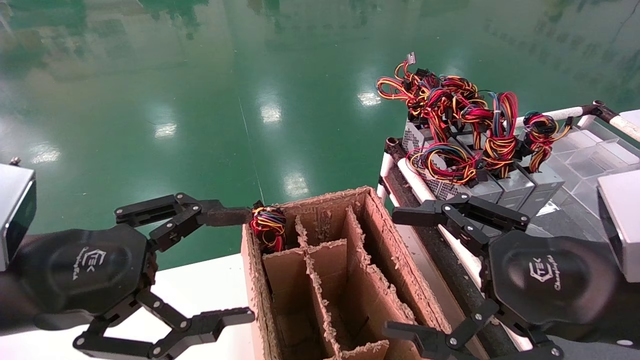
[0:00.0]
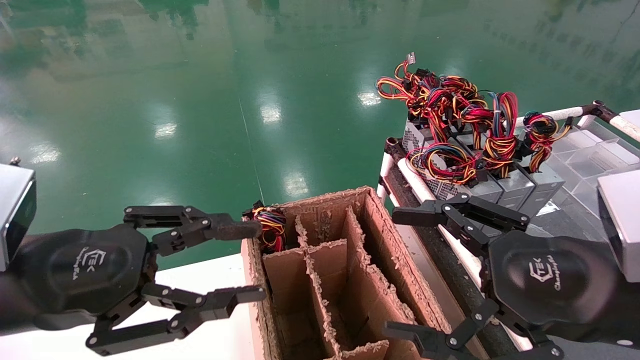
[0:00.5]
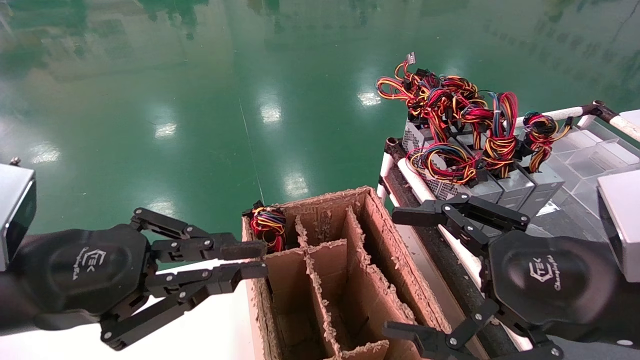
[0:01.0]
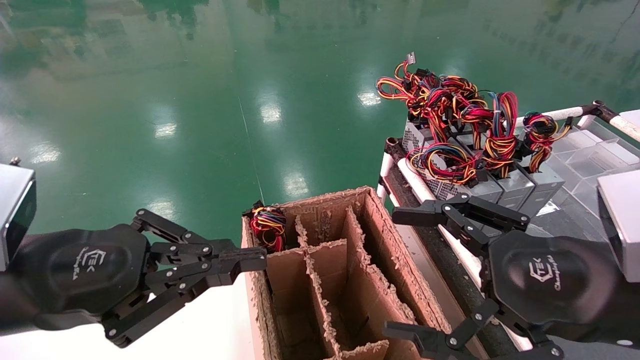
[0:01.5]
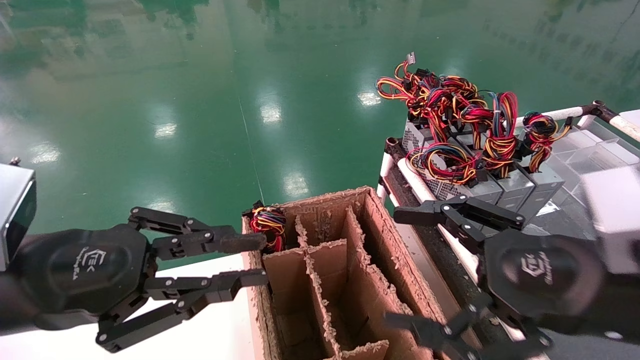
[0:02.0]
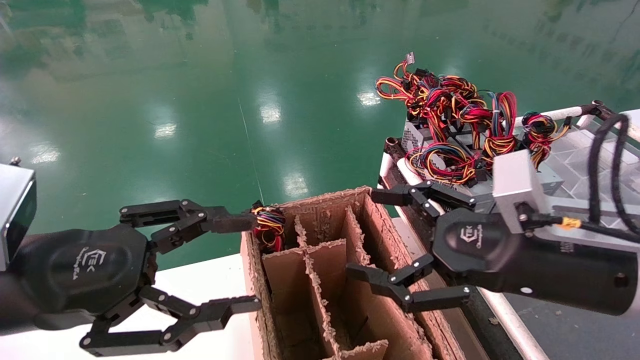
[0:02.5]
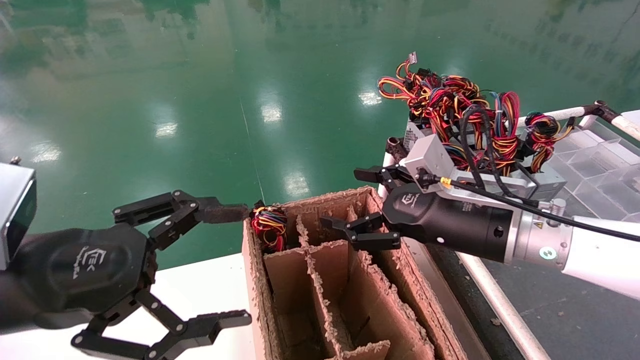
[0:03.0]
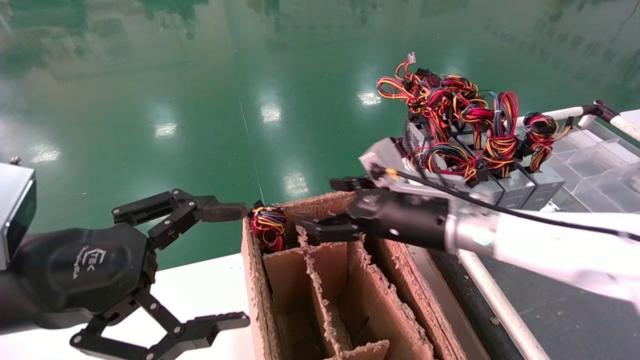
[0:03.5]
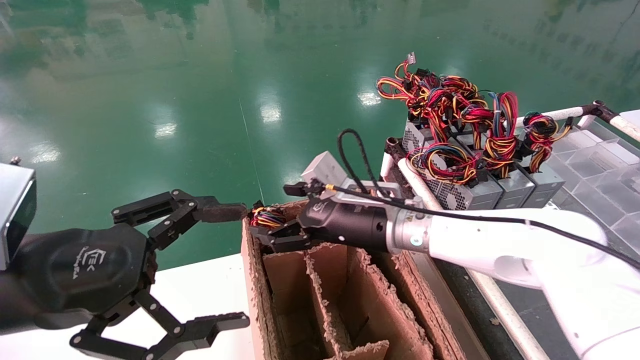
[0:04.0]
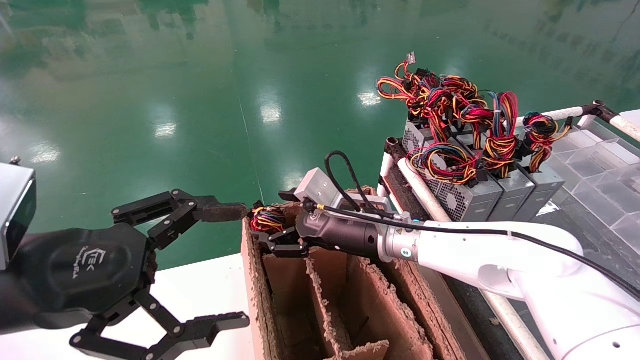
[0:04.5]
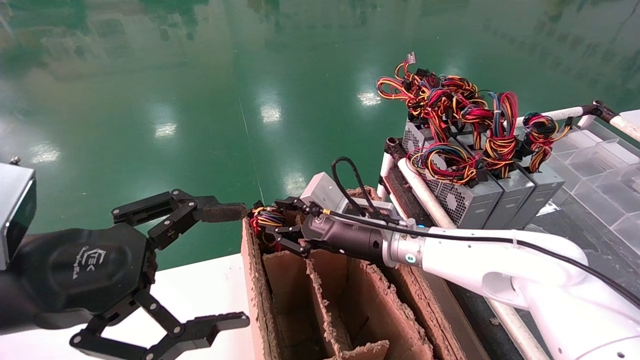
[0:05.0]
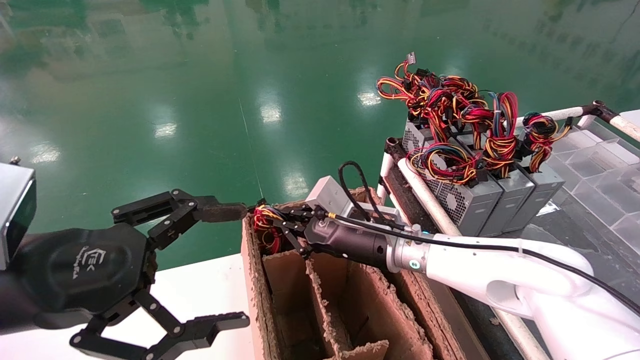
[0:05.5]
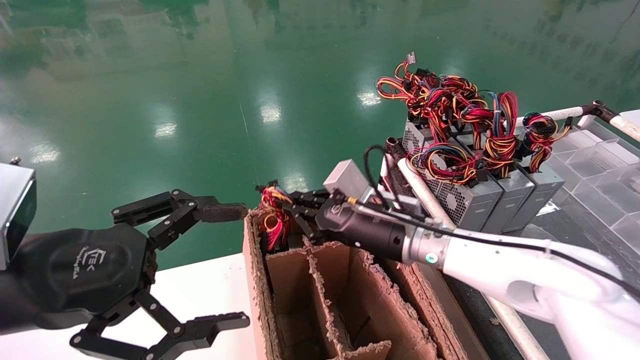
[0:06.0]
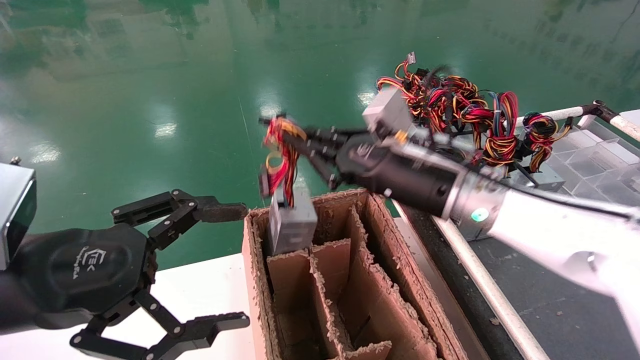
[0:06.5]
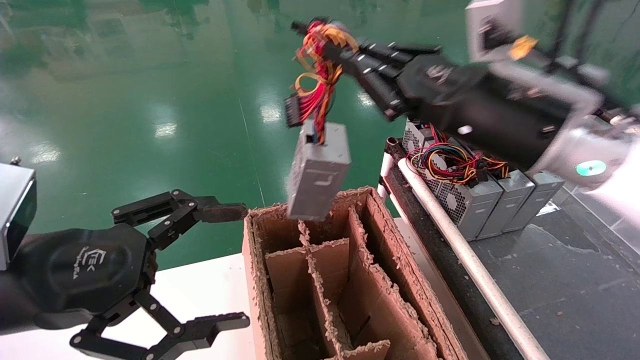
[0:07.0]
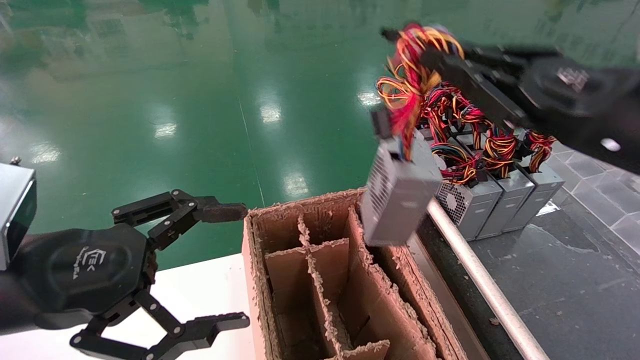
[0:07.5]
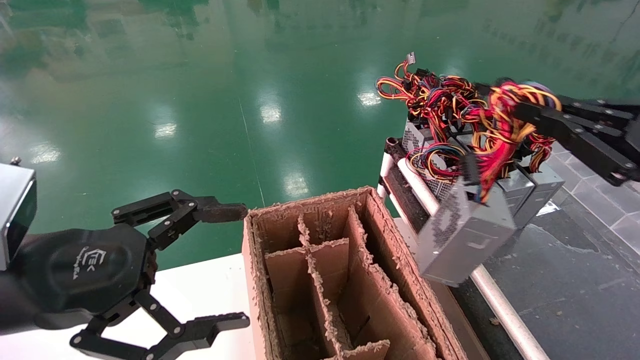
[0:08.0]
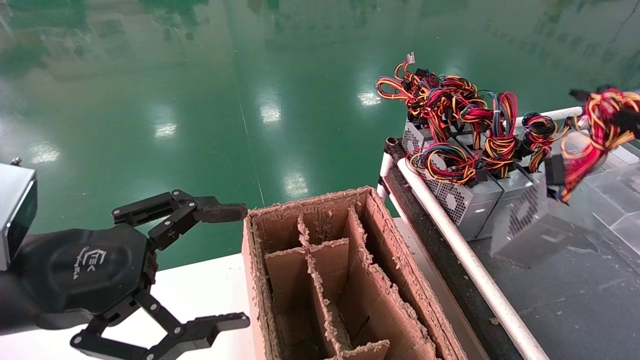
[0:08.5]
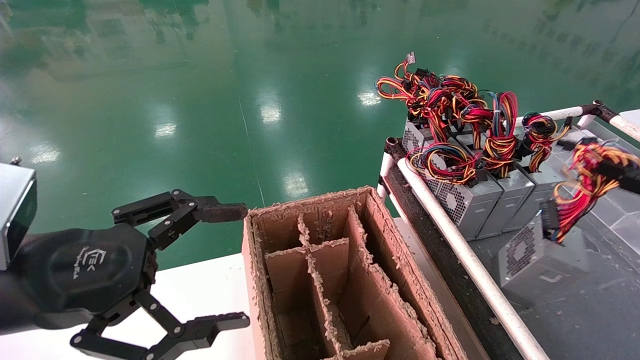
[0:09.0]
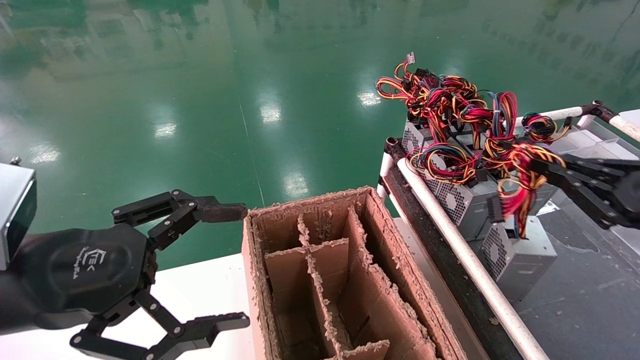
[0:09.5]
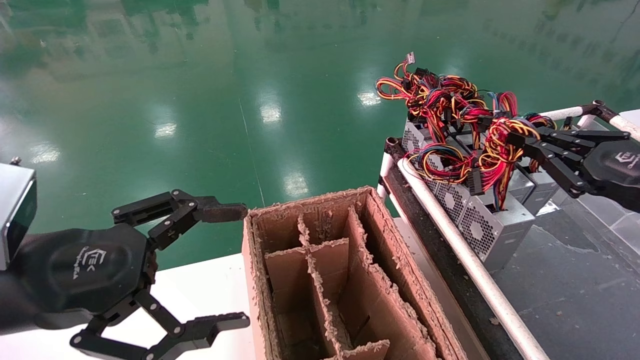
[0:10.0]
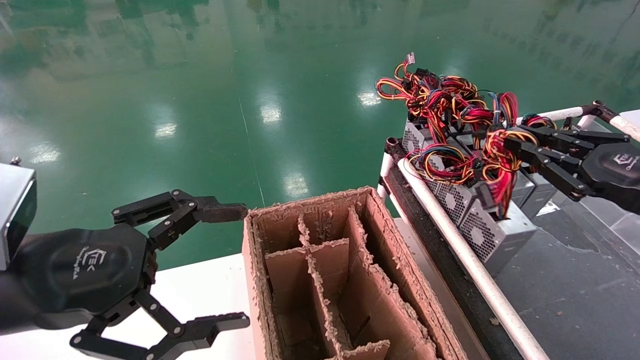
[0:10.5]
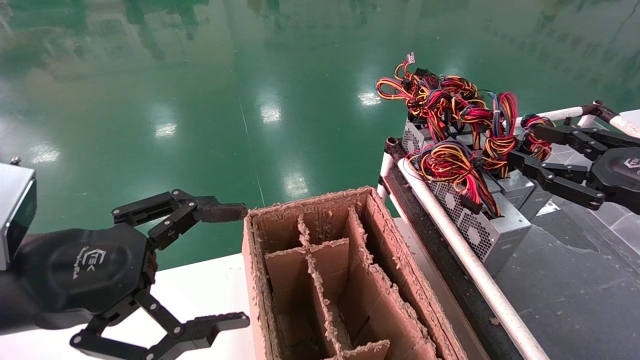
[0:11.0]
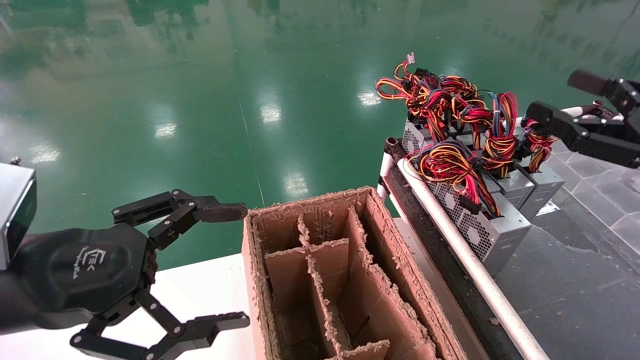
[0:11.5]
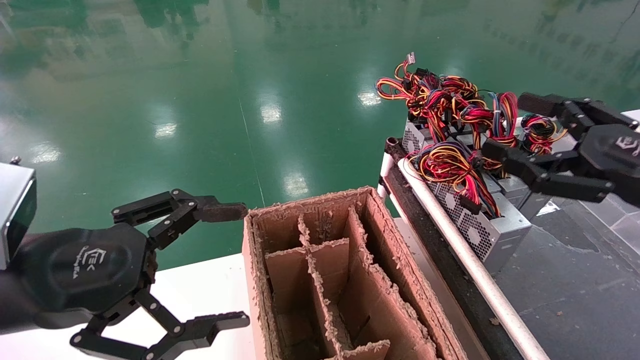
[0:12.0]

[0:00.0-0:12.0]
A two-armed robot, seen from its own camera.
Step, 1.5 to 5.5 s: Grab and lift the power supply from the large box.
Step, 6.0 to 10.5 s: Place the power supply on the operating table.
0.0 to 2.0 s: The left gripper closes its fingers.
2.0 to 4.0 s: The left gripper opens up; the right gripper heads forward and to the left, covering some 25 cm.
4.0 to 6.0 s: The right gripper closes.
6.0 to 8.0 s: The right gripper heads to the right, backward and upward, covering about 35 cm.
8.0 to 10.0 s: The right gripper travels forward by some 5 cm.
10.0 to 12.0 s: The right gripper shifts by approximately 5 cm, and opens up.

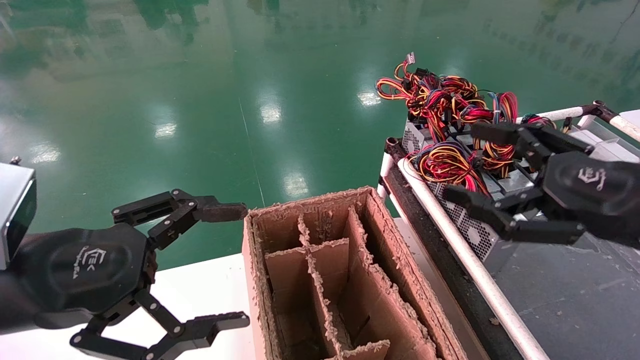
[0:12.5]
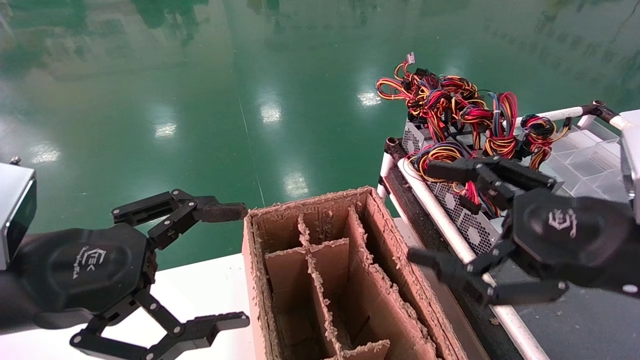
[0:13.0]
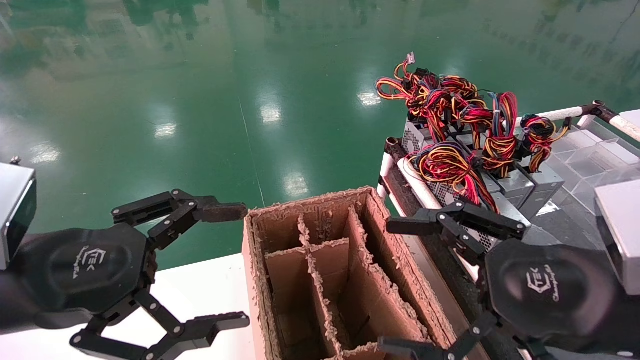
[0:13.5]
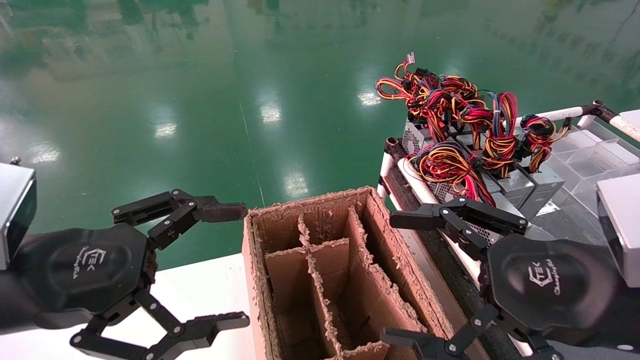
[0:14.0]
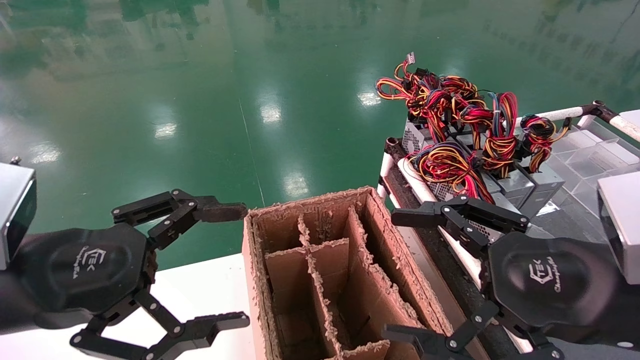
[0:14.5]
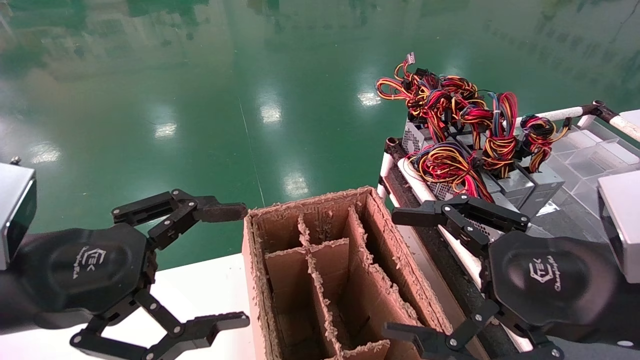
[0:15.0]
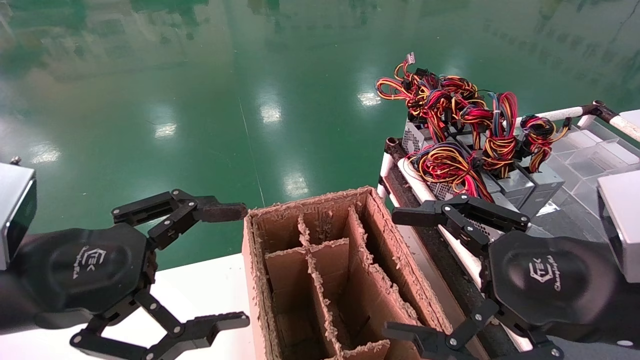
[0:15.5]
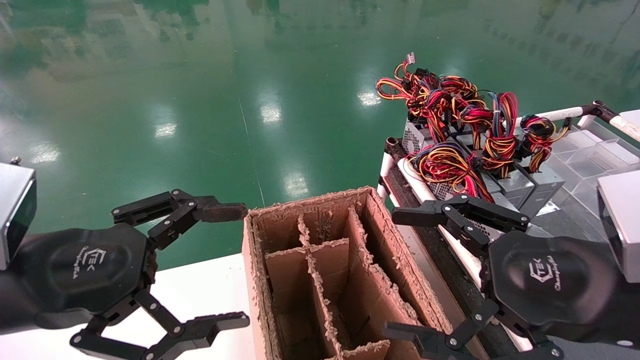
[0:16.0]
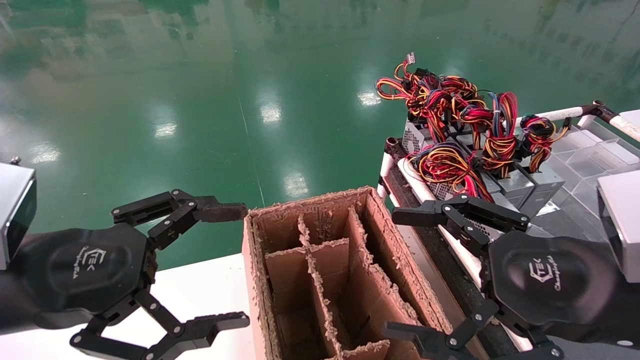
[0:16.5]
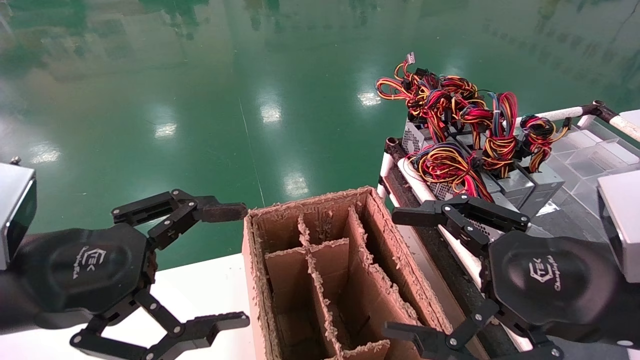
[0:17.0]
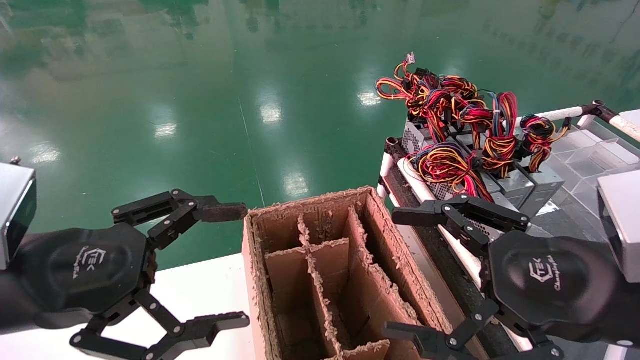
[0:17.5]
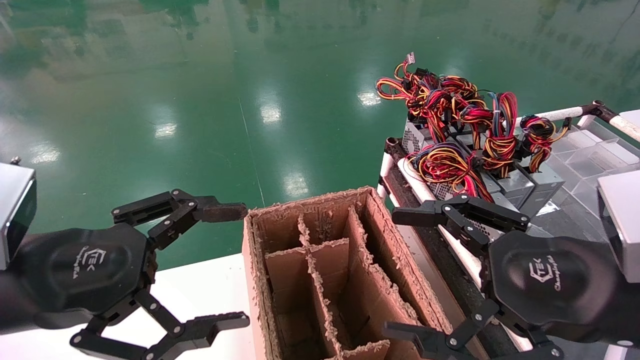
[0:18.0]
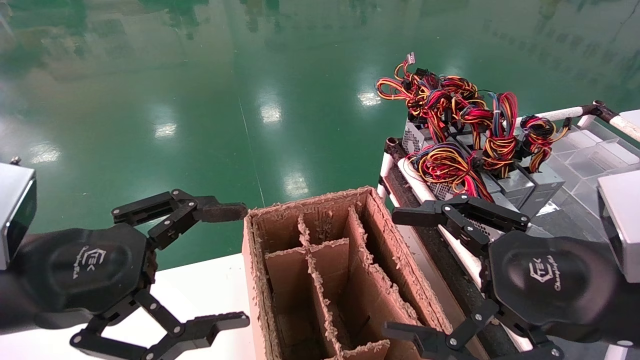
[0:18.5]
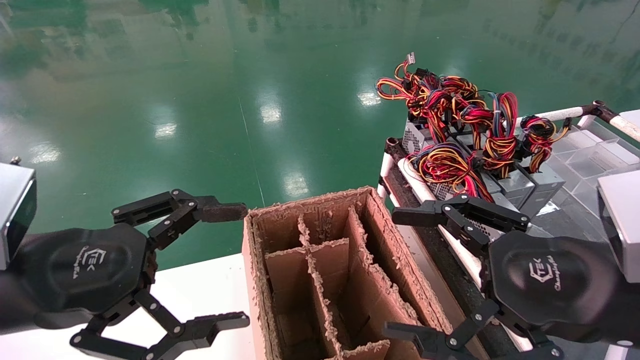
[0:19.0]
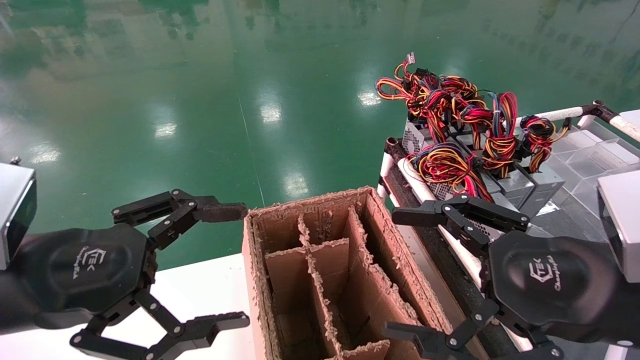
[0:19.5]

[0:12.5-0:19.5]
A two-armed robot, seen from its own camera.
12.5 to 14.5 s: The right gripper travels to the left by roughly 5 cm.
14.5 to 19.5 s: Both grippers stay put.

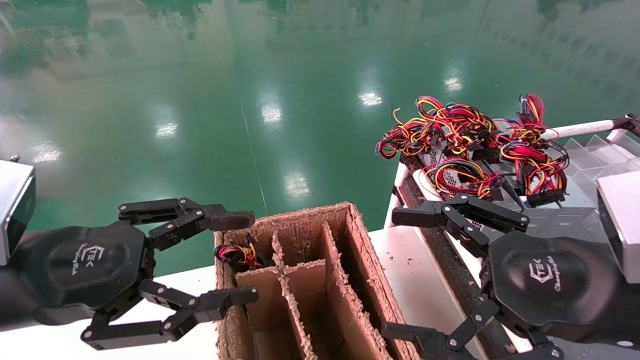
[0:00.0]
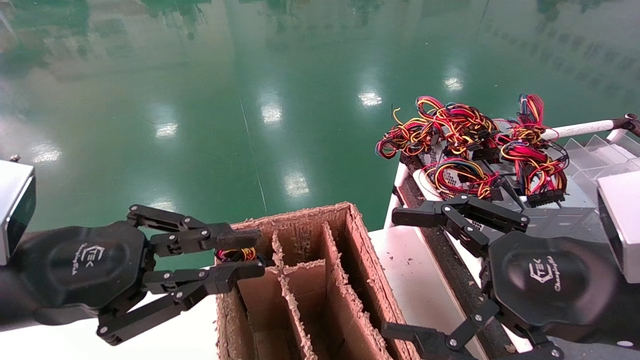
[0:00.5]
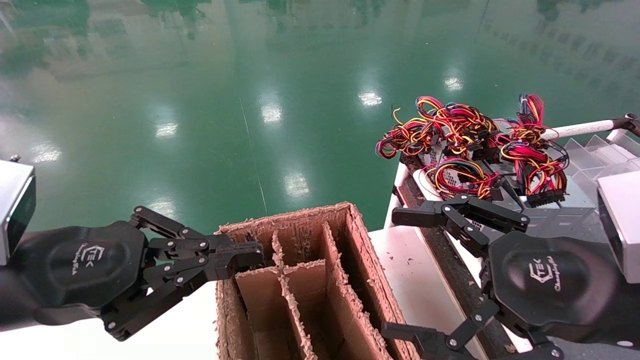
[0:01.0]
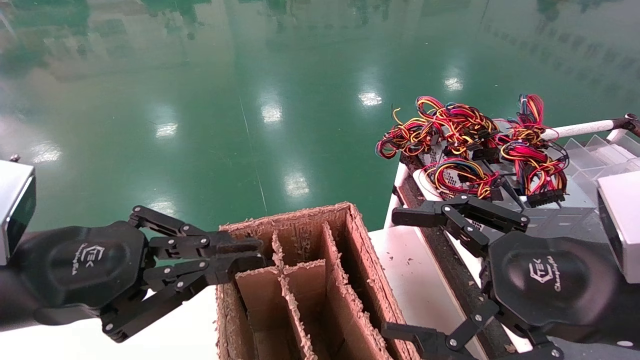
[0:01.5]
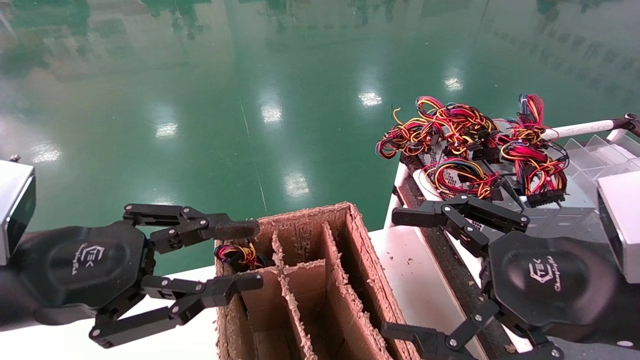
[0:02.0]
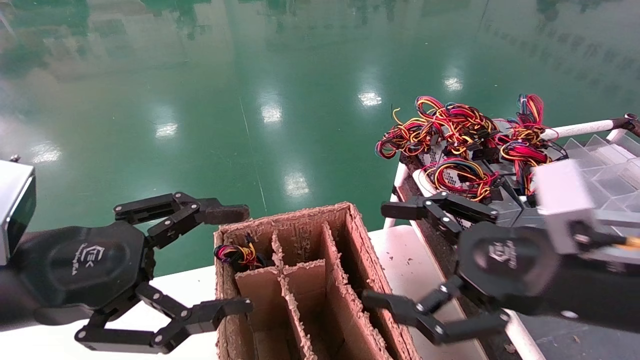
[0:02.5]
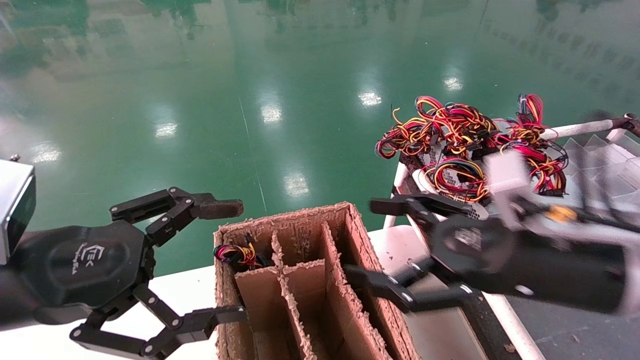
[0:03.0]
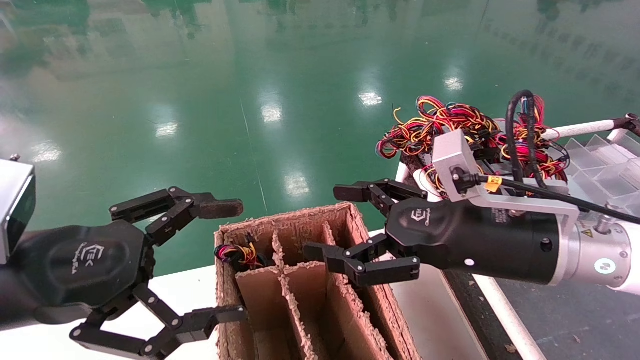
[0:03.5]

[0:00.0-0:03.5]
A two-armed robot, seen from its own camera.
0.0 to 2.0 s: The two grippers keep their place.
2.0 to 3.5 s: The right gripper travels forward and to the left by some 10 cm. The left gripper opens.
